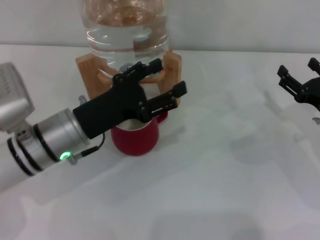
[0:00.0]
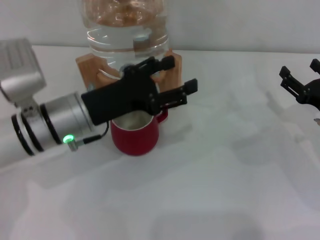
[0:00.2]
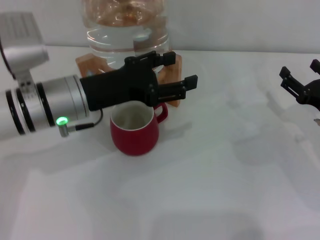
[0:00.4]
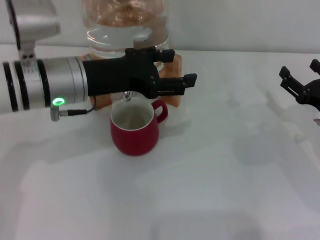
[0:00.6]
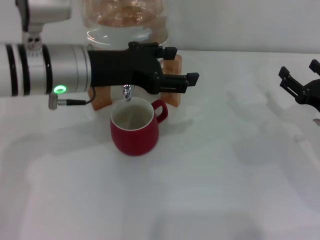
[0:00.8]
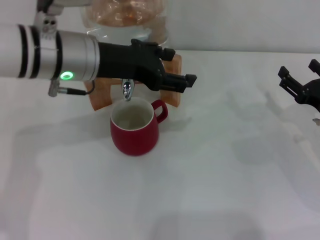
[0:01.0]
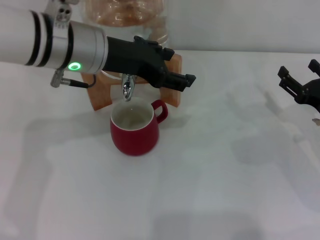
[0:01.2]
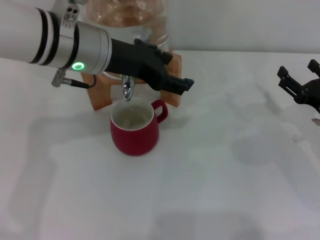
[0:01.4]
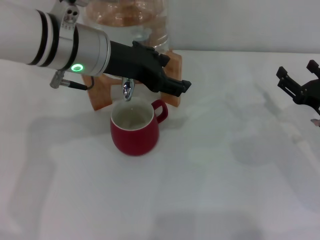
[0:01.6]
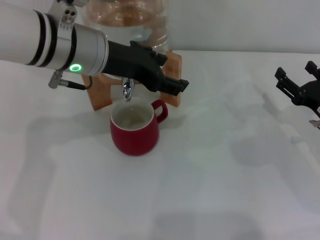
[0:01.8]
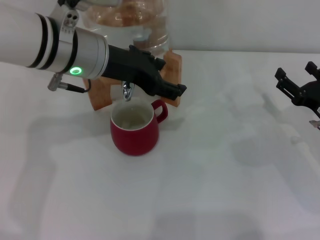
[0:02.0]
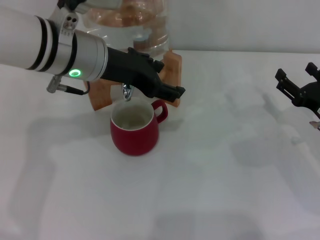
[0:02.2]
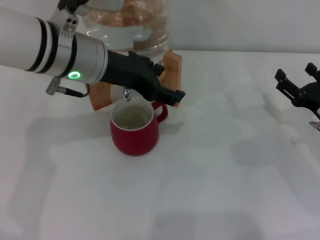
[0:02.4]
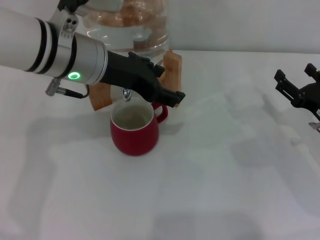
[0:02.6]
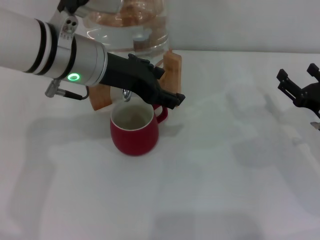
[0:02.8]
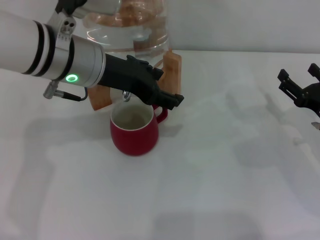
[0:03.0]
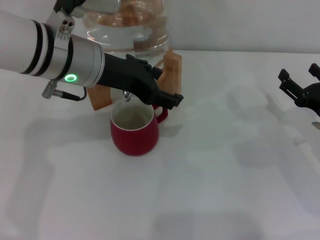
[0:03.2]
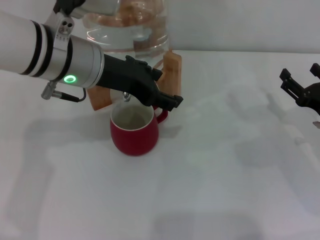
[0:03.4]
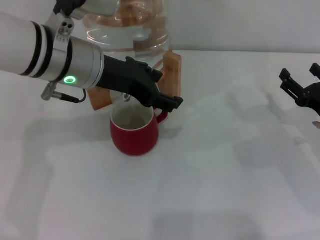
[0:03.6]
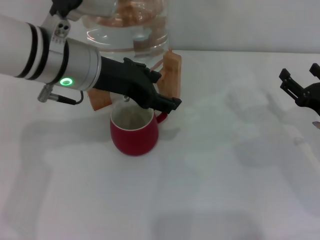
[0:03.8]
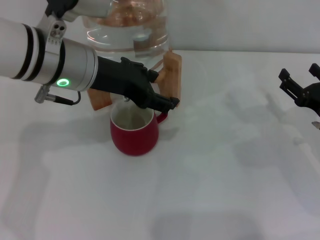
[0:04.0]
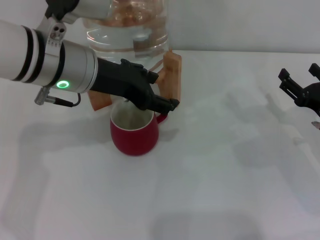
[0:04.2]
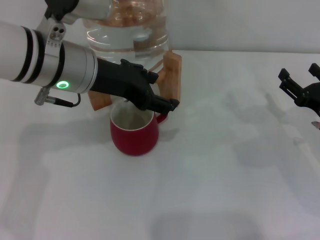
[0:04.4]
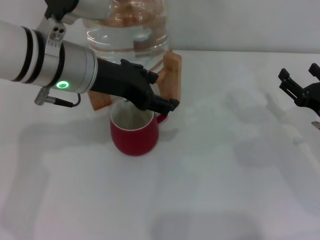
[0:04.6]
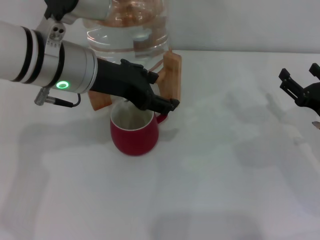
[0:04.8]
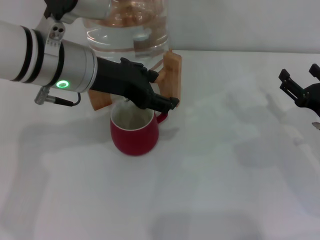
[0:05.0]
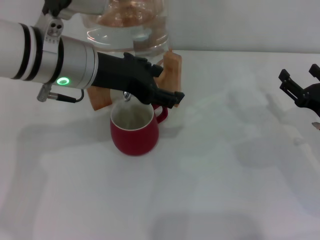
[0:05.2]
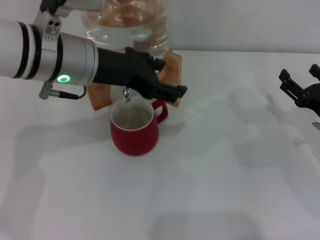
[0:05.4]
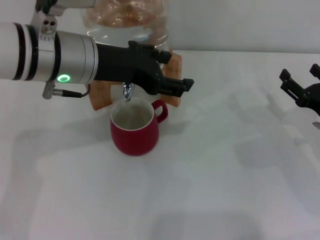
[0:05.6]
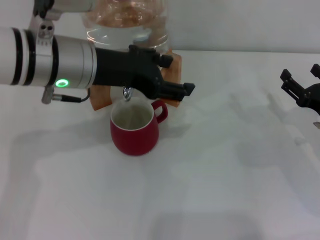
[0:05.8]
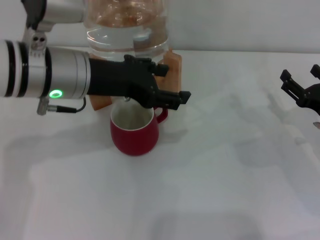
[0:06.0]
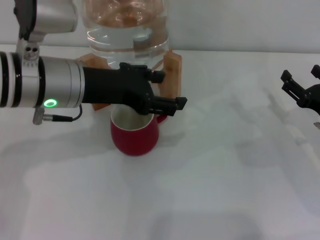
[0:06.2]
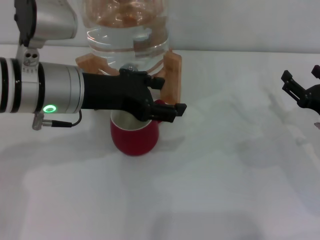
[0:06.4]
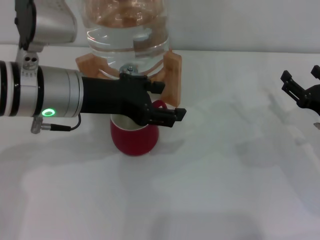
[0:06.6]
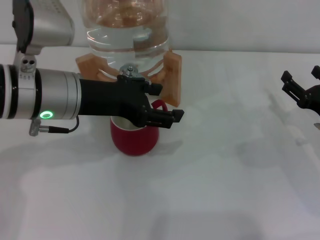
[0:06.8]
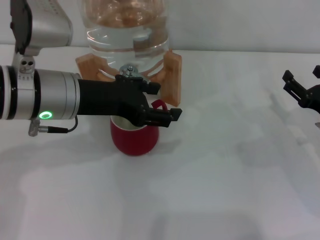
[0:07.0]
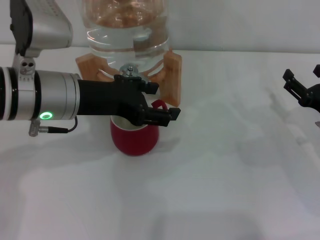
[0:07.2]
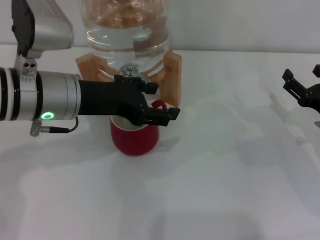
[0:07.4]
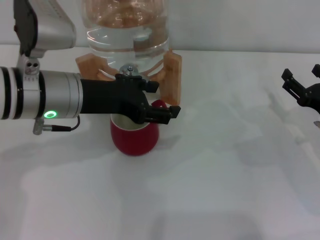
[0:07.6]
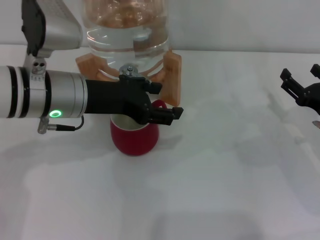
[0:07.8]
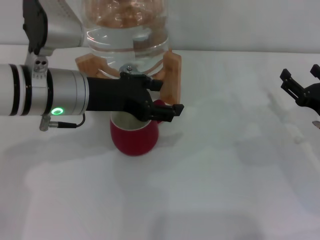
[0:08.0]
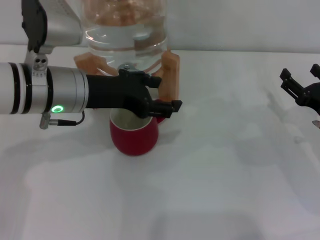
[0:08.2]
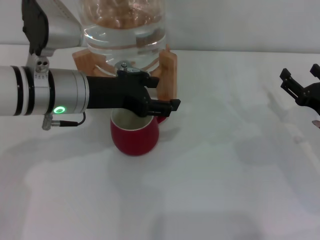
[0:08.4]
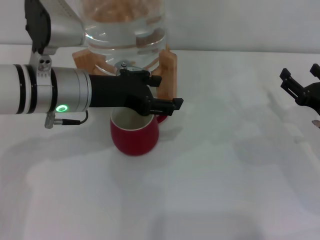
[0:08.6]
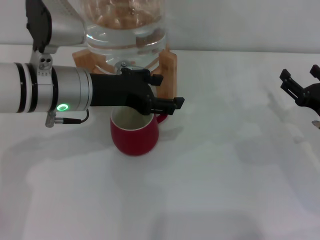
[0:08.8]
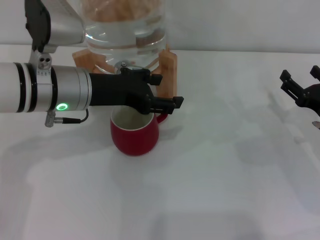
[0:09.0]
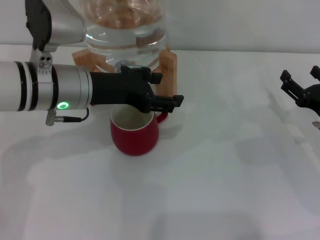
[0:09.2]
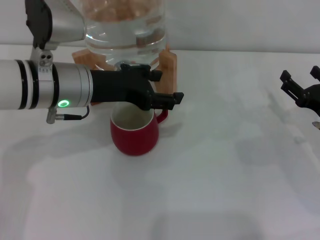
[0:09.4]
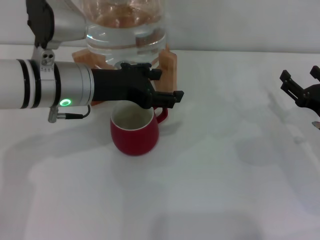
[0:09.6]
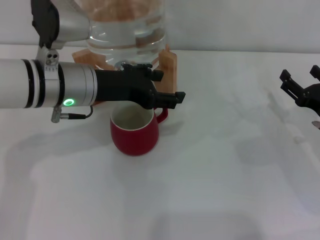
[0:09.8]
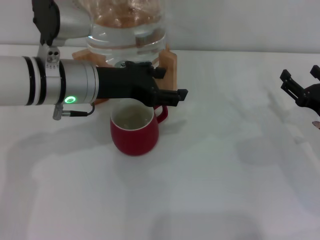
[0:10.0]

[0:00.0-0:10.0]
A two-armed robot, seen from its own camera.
Task of the whole recording: the right gripper pick up the red cup and place it horizontally under the faucet, the left gripper turn on the faucet to fill the cup, and then turn off the faucet.
Step, 0:00.0 to 0:06.6: Open the dispenser valve and fill the cup with water with the left gripper.
0:00.0 to 0:01.4: The left gripper heads upward and forward, covering about 15 cm.
0:01.4 to 0:02.8: The two grippers keep their place.
0:02.8 to 0:08.6: The grippers move only a little.
0:08.6 to 0:10.0: Neither gripper changes place.

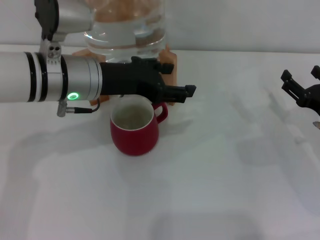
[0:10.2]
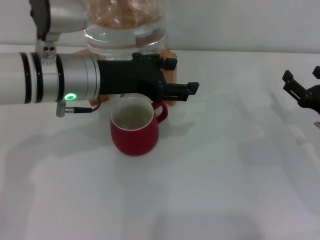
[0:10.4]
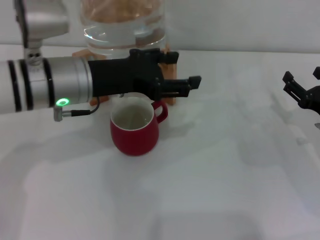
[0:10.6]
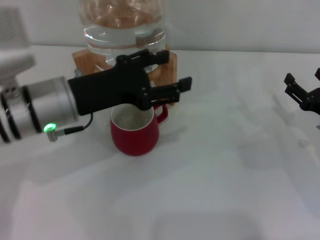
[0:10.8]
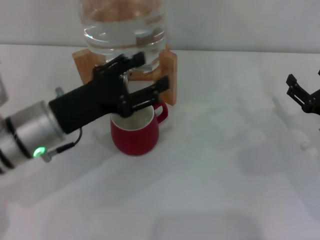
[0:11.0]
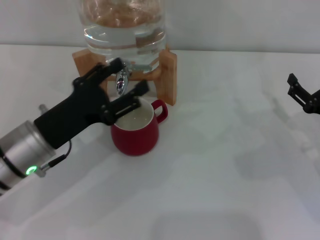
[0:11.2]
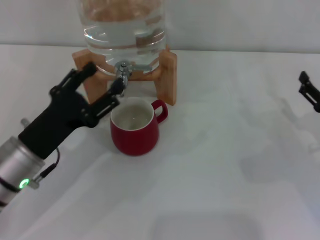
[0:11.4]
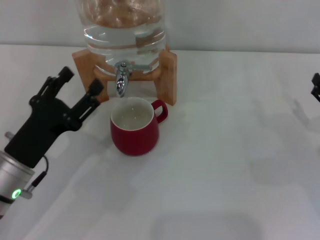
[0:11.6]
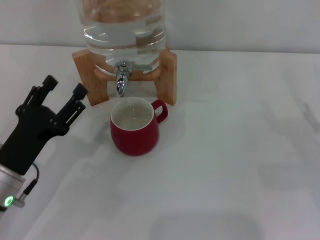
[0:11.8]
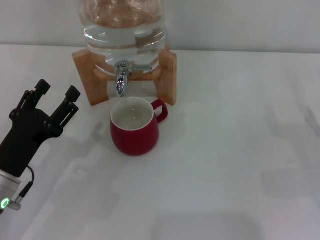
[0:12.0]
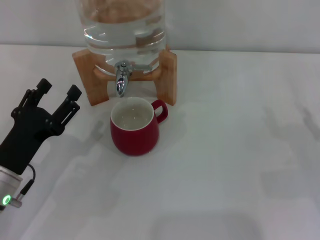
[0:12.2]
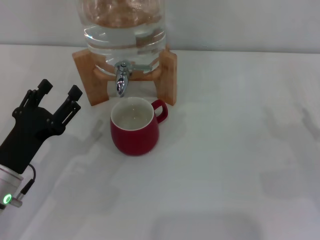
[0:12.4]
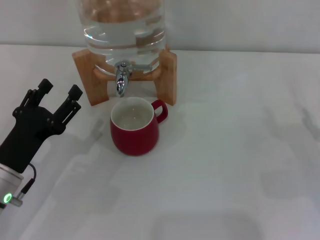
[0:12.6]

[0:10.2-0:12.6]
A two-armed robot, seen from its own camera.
Task of the whole recording: the right gripper pick up the red cup and place it horizontally under the faucet, the left gripper turn on the faucet to fill the cup, and then turn off the faucet.
0:10.2 to 0:11.4: The left gripper heads downward, backward and to the left, covering approximately 15 cm.
0:11.4 to 0:12.6: The grippers make only small movements.

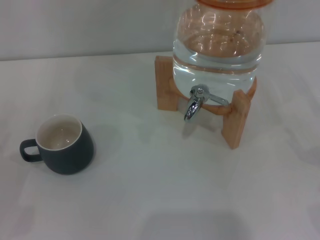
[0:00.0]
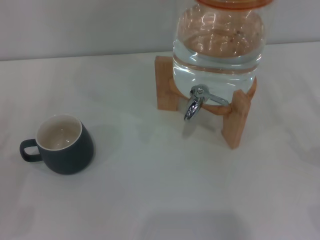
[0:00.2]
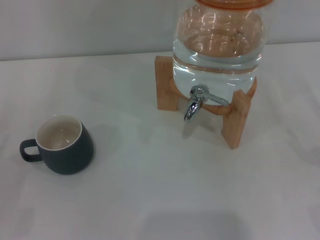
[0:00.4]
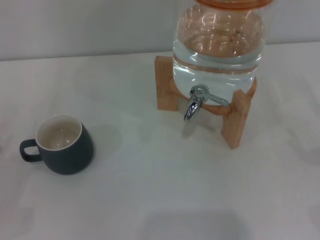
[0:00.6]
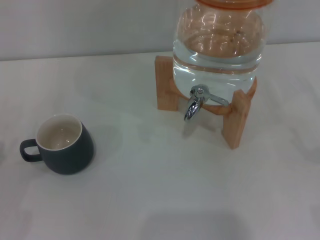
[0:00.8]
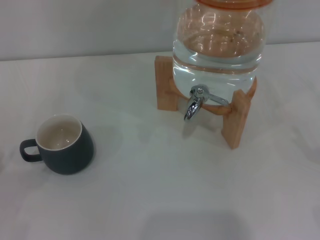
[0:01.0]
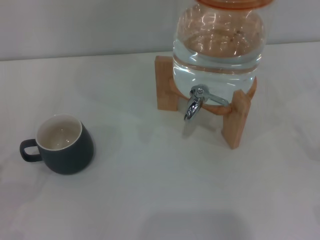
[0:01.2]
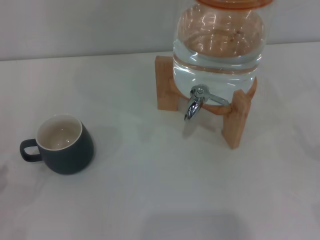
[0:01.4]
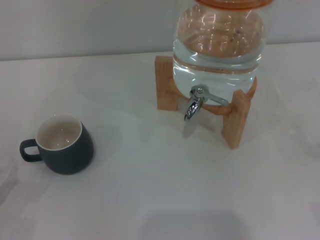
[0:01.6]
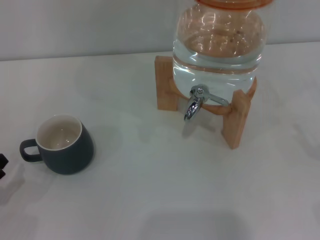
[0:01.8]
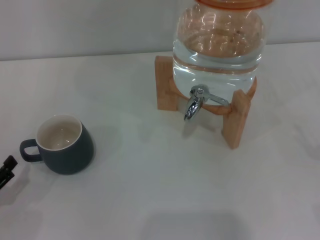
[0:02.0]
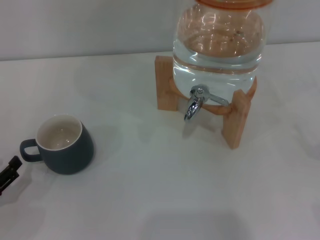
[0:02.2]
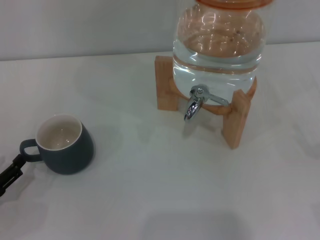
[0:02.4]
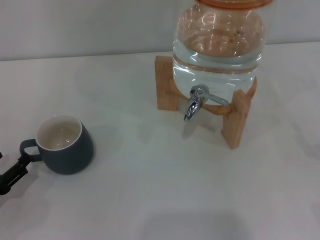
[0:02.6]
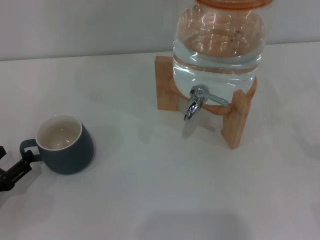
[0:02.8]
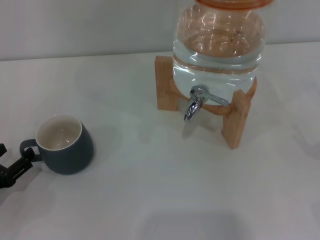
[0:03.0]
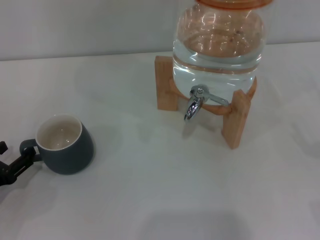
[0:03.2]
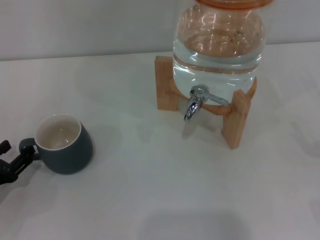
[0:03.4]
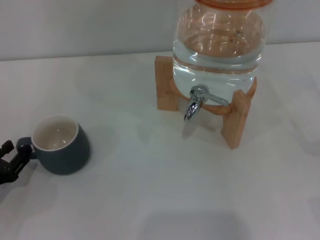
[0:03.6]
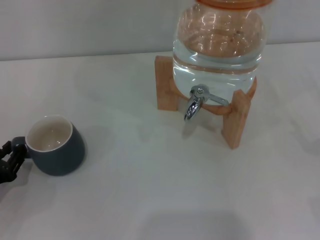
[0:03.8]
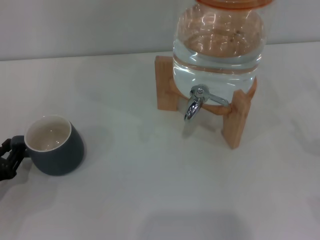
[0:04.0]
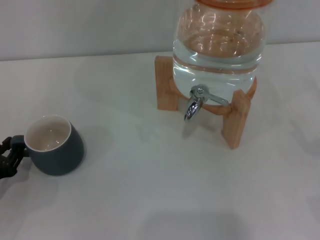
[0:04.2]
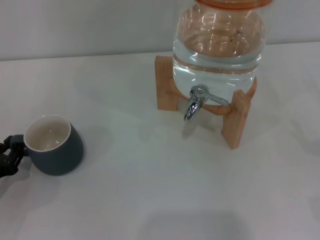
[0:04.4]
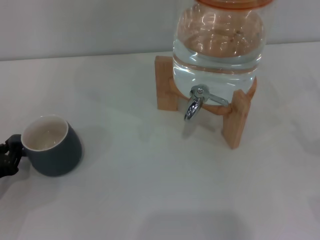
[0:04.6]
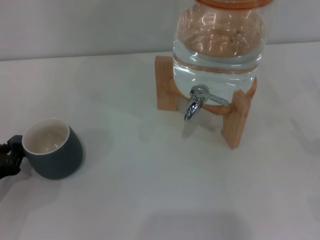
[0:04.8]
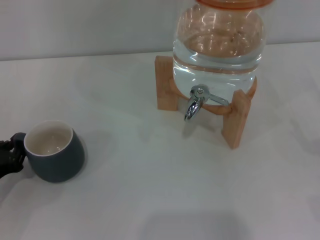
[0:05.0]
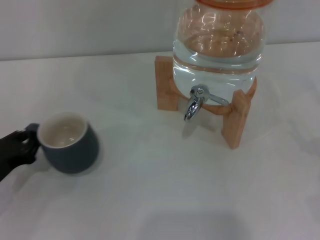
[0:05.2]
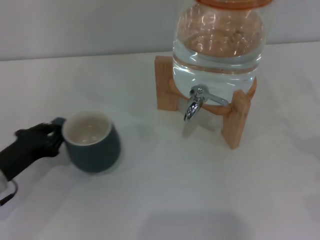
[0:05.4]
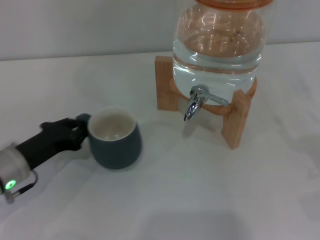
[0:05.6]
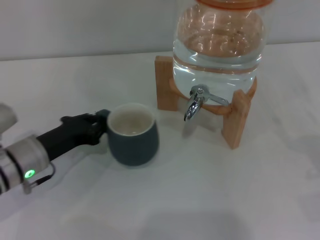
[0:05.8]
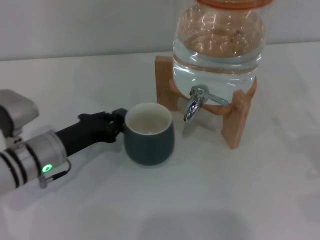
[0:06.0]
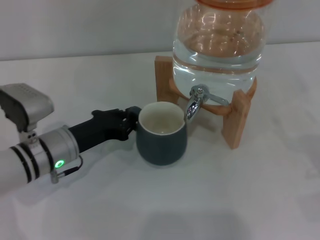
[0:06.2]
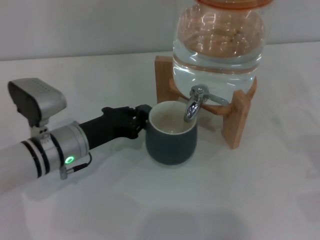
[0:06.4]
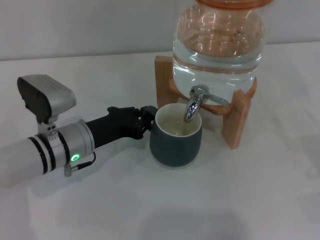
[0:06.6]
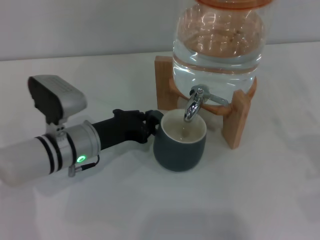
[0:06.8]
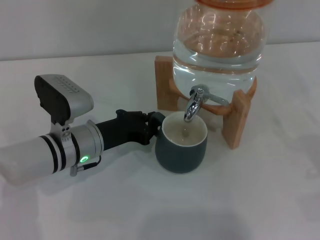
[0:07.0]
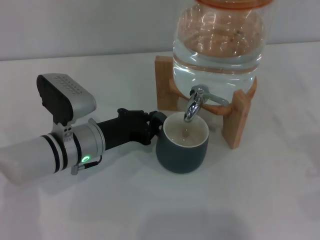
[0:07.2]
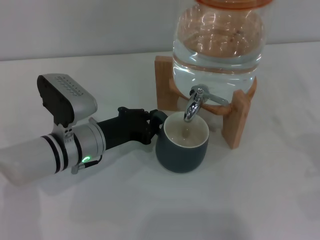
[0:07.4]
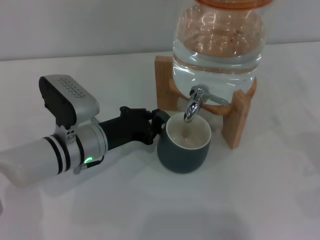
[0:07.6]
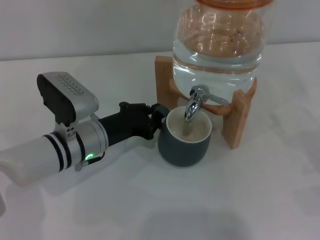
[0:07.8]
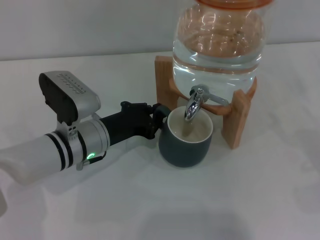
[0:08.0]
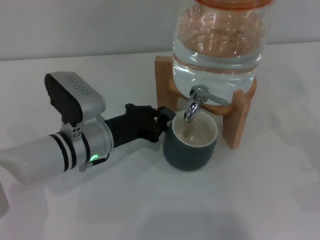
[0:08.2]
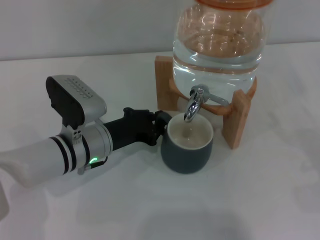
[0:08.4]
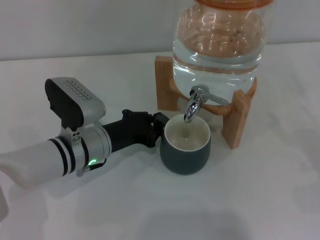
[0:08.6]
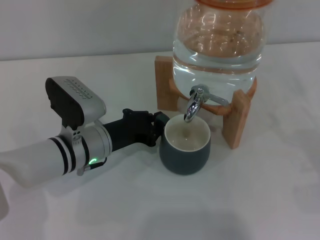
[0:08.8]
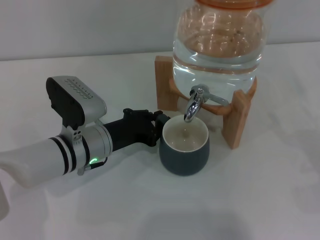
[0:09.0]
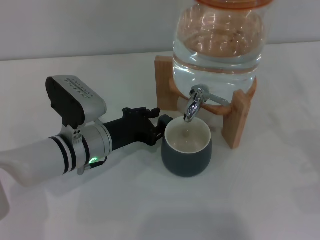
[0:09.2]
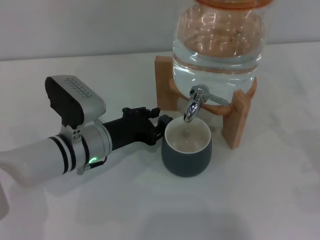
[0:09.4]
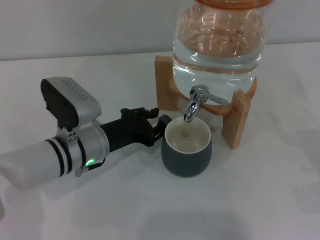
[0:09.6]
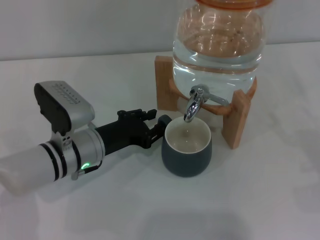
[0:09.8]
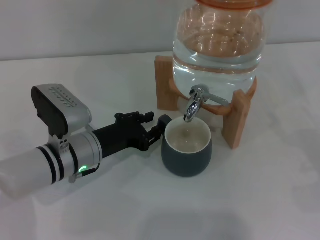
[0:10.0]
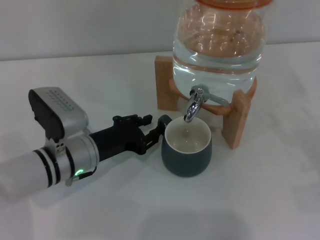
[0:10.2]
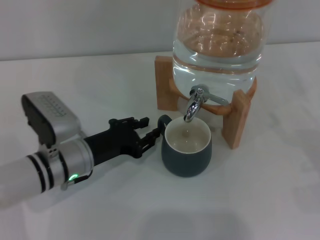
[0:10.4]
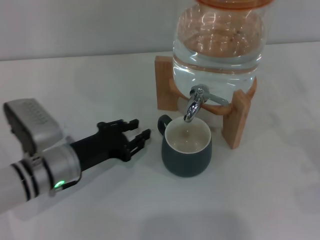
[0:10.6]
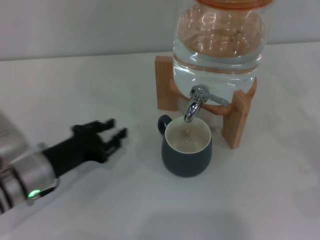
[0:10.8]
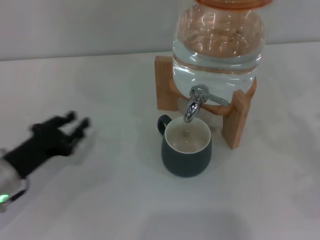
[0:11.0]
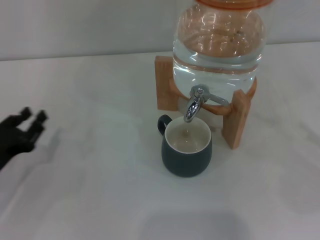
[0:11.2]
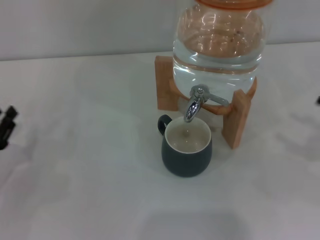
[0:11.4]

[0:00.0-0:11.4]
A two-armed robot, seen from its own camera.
Task of the whole recording: the left gripper pick up the black cup and place it horizontally under the faucet, the right gripper turn on the faucet to fill the cup, and then turn off the faucet.
Step, 0:00.0 to 0:10.6: Move the cup beneath the water dispenser nozzle with the left gripper.
0:01.4 to 0:02.8: The left gripper changes place by roughly 5 cm.
0:02.8 to 0:04.2: The left gripper closes.
0:04.2 to 0:05.6: The left gripper is displaced to the right and forward by about 10 cm.
0:05.6 to 0:07.2: The left gripper heads to the right, covering some 10 cm.
0:07.2 to 0:08.6: The two grippers keep their place.
0:08.6 to 0:10.0: The left gripper opens up.
0:10.0 to 0:11.4: The right gripper moves upward, roughly 5 cm, while the left gripper shifts about 20 cm to the left.
